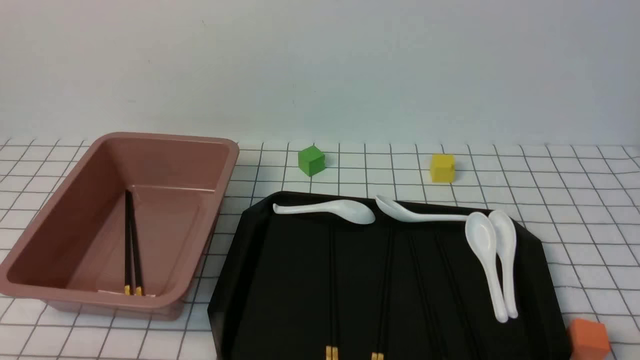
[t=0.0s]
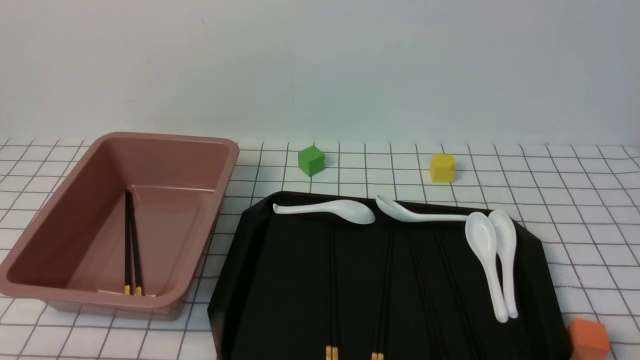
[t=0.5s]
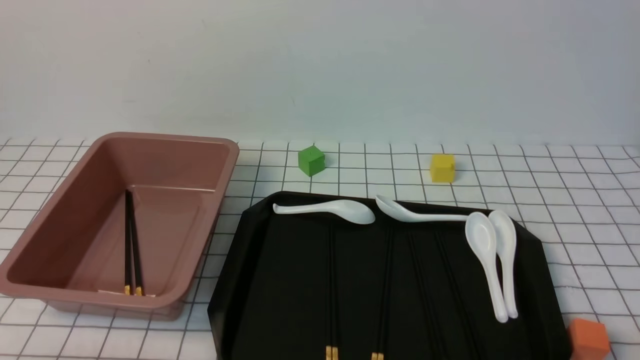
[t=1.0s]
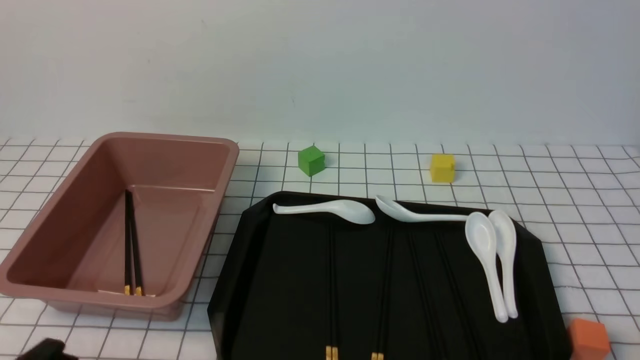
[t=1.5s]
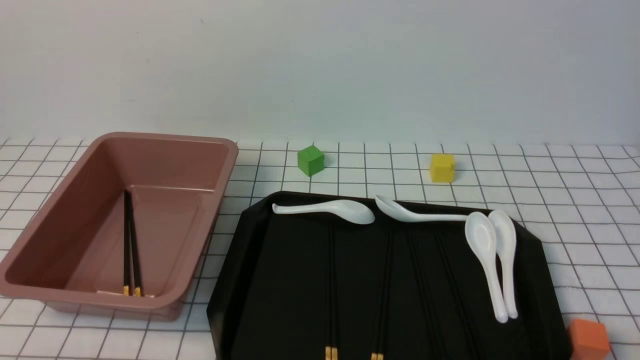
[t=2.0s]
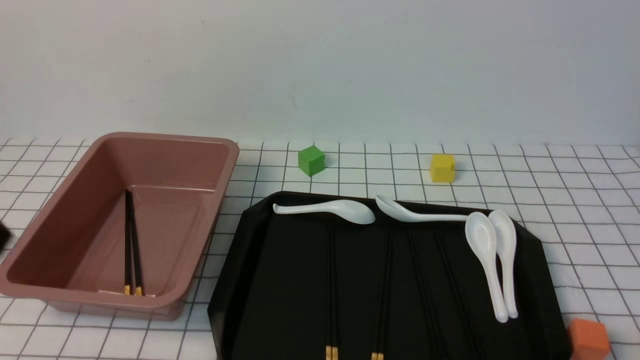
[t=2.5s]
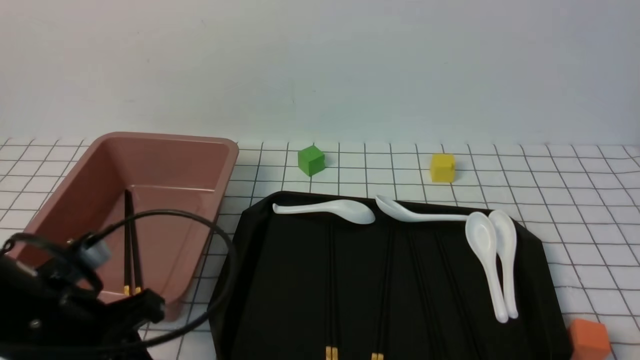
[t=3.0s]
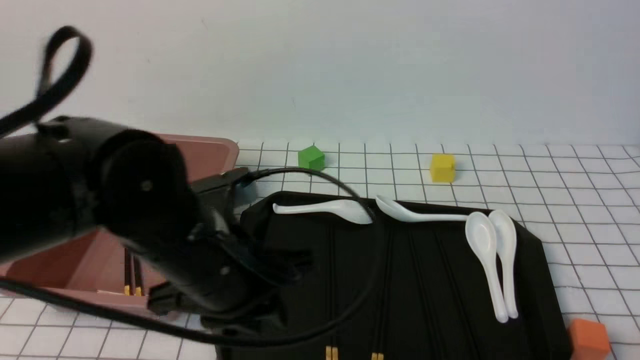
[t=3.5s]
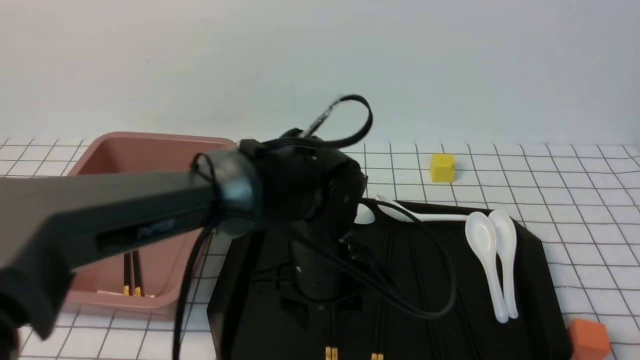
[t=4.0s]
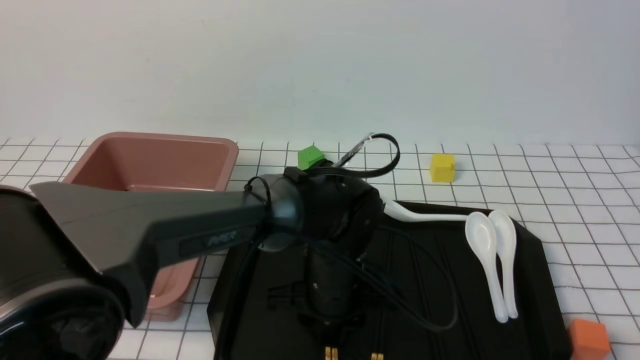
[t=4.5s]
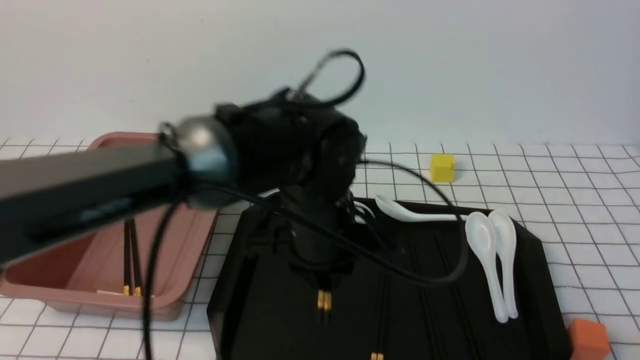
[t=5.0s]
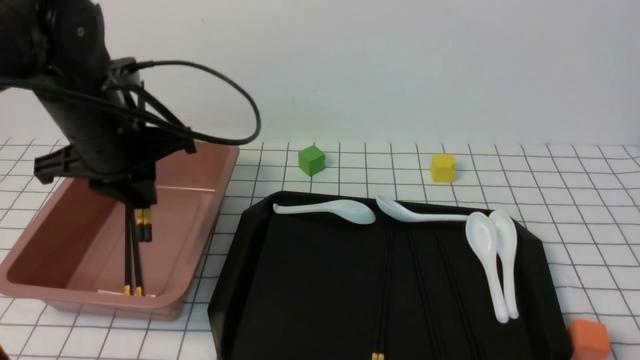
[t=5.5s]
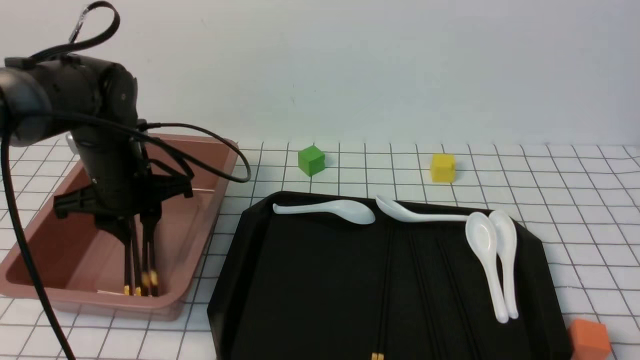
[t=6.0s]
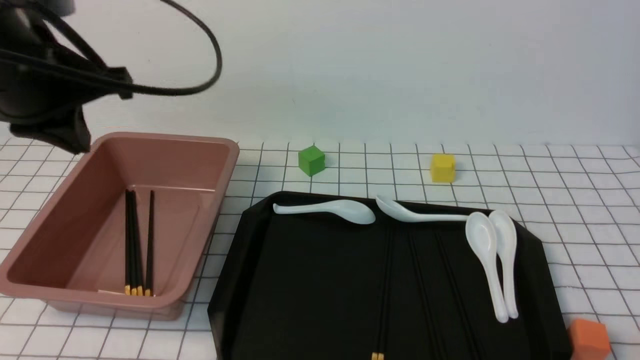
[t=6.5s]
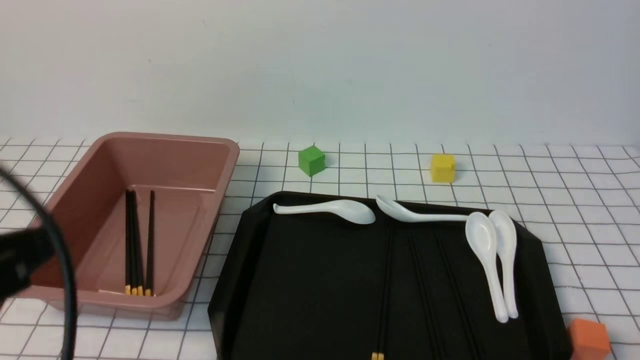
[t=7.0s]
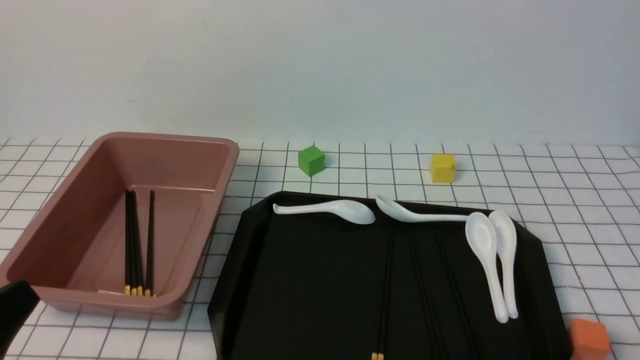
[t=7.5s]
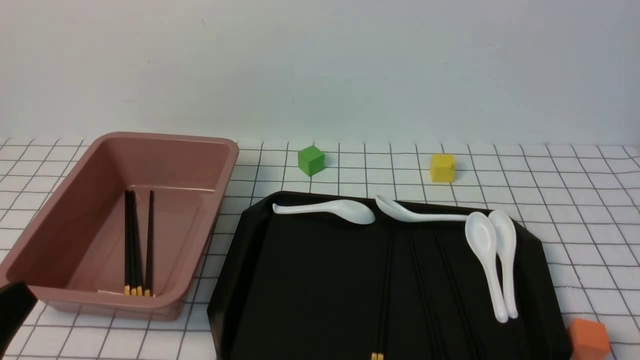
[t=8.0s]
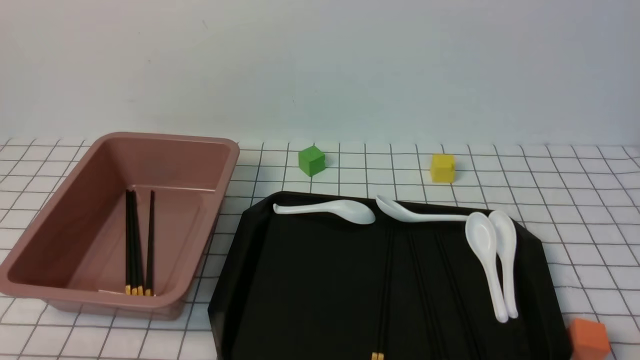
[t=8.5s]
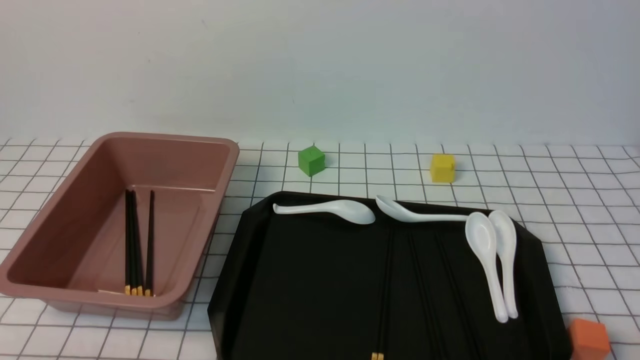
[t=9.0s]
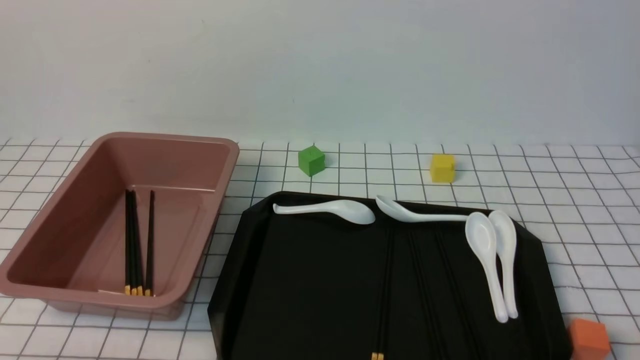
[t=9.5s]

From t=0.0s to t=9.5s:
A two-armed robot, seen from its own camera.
Step, from t=0.0s to t=4.5s: use the left arm to grab a pair of chopsticks.
Step, from t=5.0s to t=6.0s: use the left arm to put the chopsticks into the lunch box.
From t=2.0s to t=4.0s: The left gripper is displaced to the right and forward by approximately 35 cm, and opens its fingers.
From t=4.0s to t=5.5s: The left gripper heads to the left and upward, covering some 20 cm, and closes.
From t=5.5s to t=7.5s: The left gripper goes some 30 cm backward, and closes up.
From t=7.5s to t=9.5s: The left gripper is displaced downward by about 10 cm.

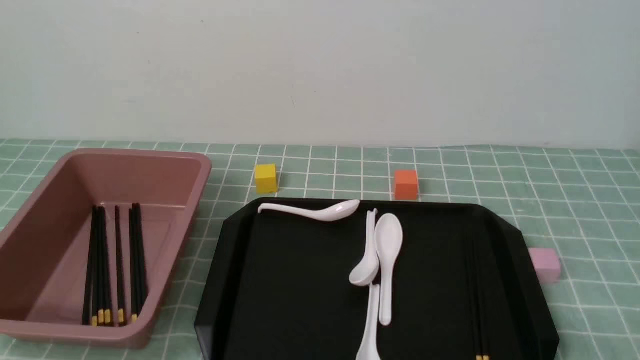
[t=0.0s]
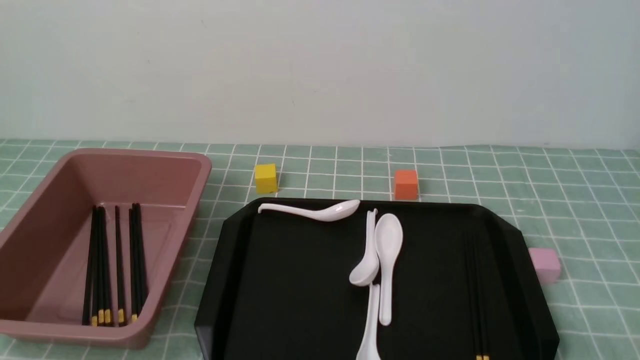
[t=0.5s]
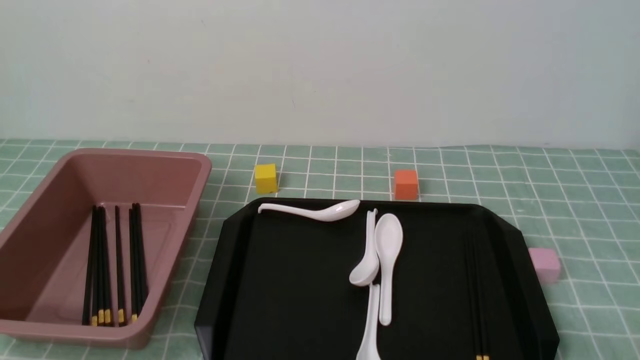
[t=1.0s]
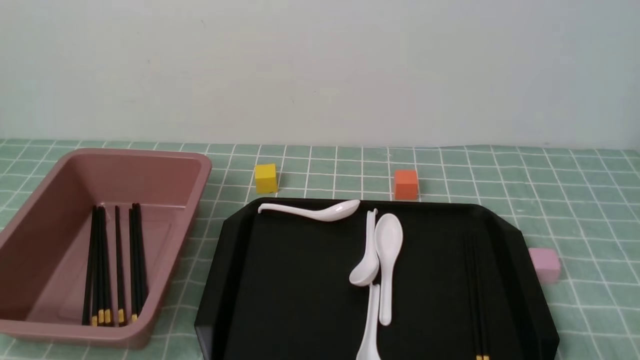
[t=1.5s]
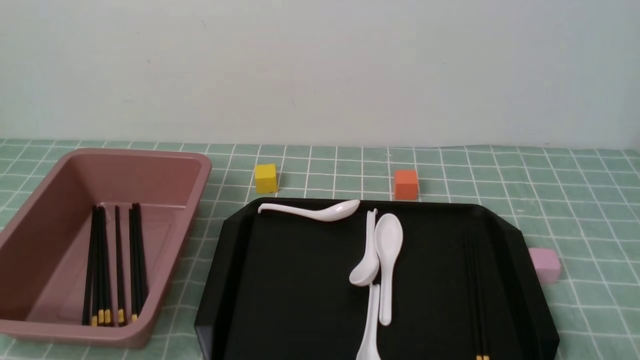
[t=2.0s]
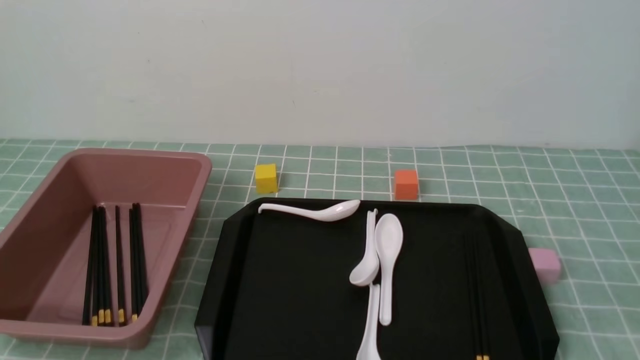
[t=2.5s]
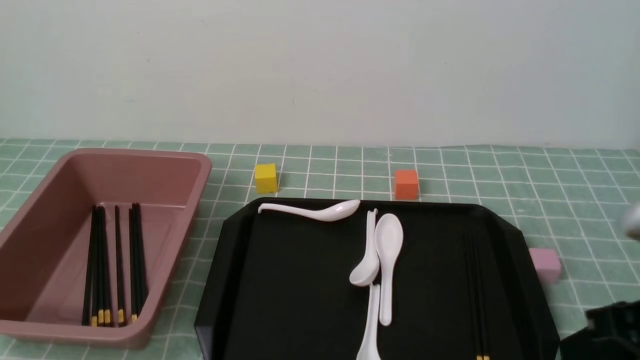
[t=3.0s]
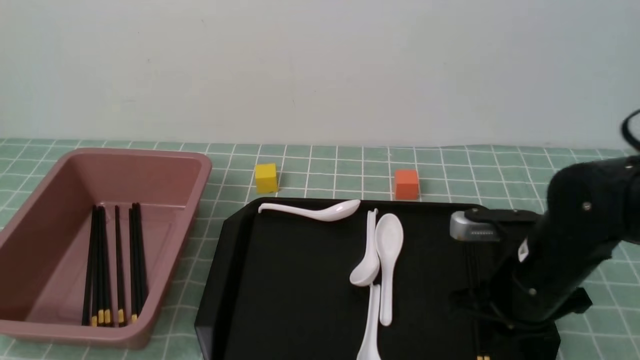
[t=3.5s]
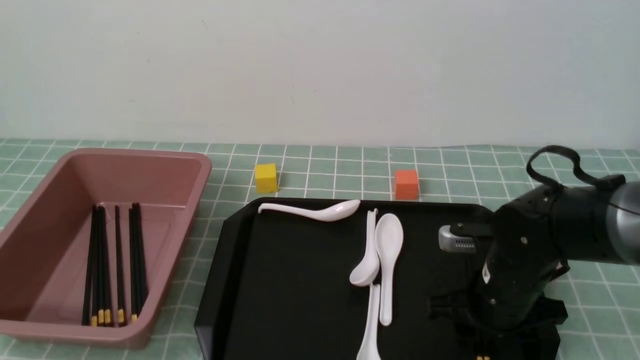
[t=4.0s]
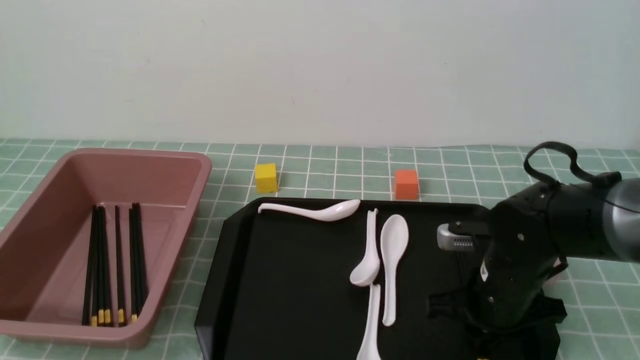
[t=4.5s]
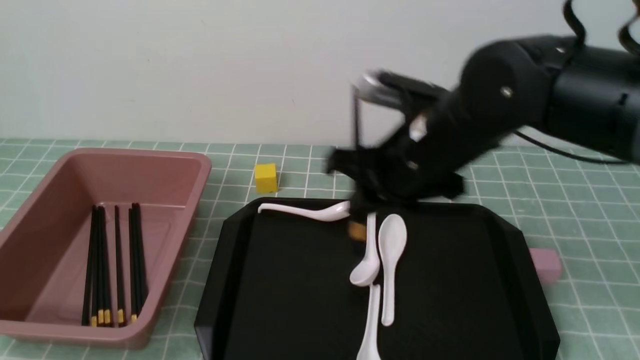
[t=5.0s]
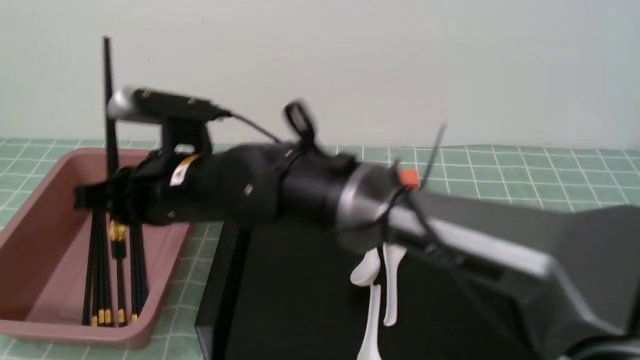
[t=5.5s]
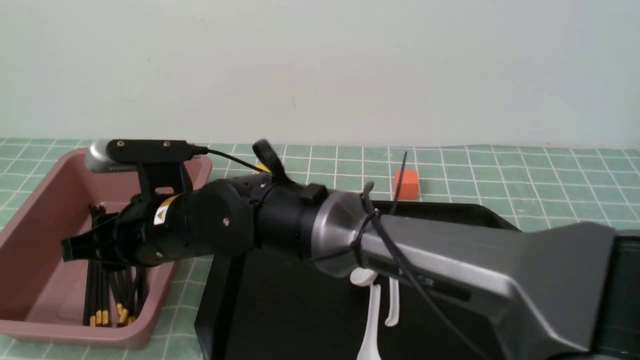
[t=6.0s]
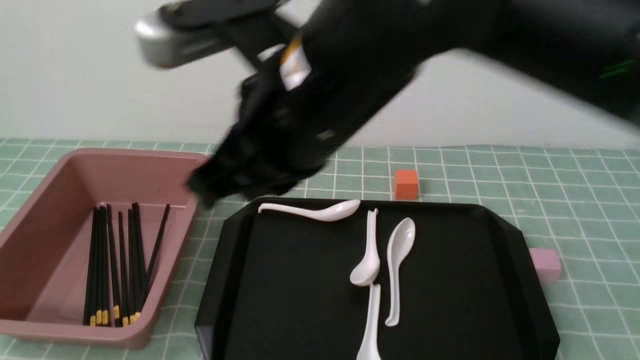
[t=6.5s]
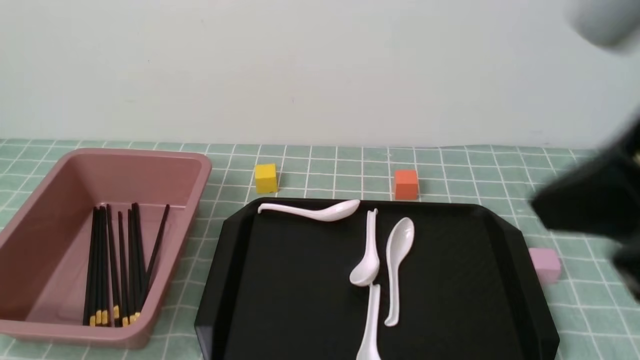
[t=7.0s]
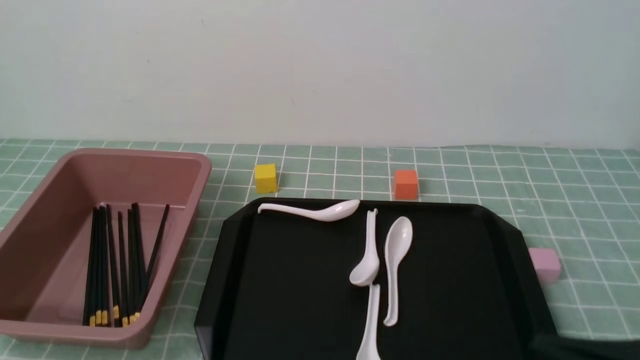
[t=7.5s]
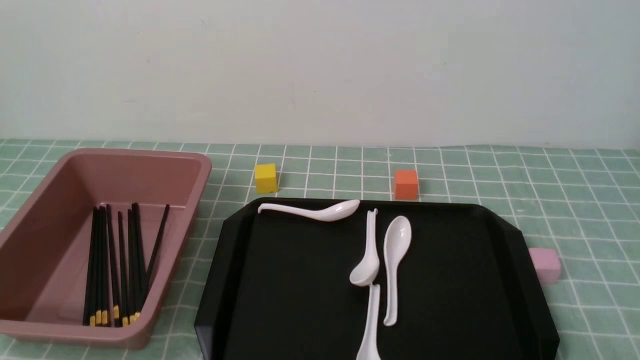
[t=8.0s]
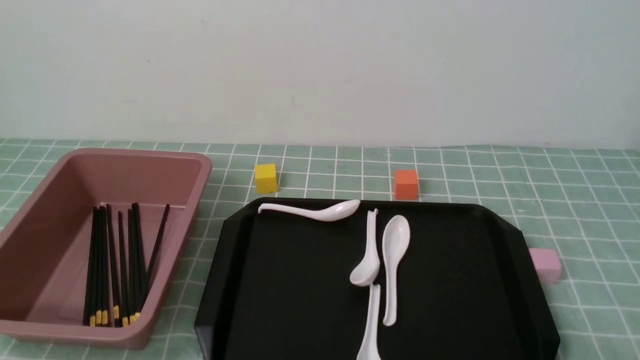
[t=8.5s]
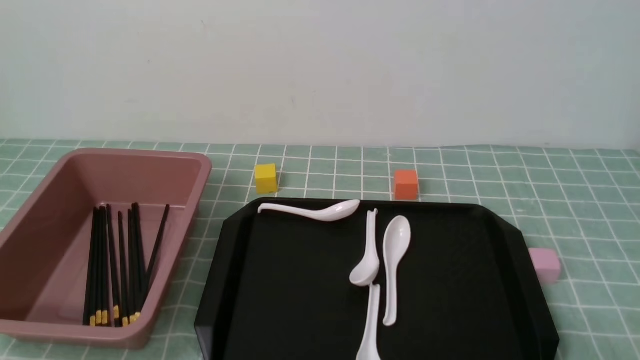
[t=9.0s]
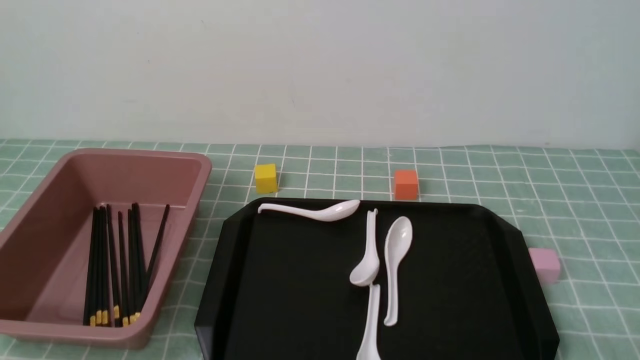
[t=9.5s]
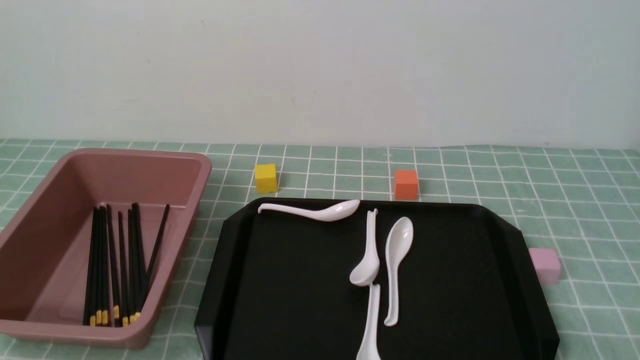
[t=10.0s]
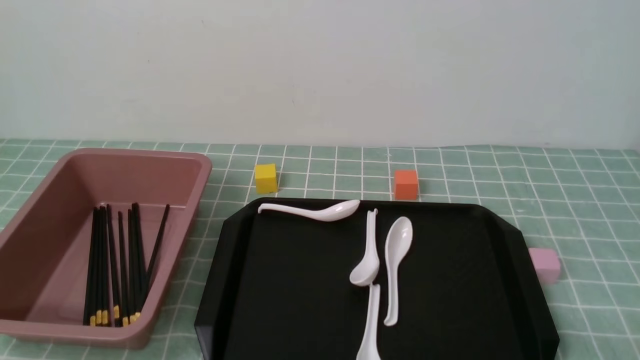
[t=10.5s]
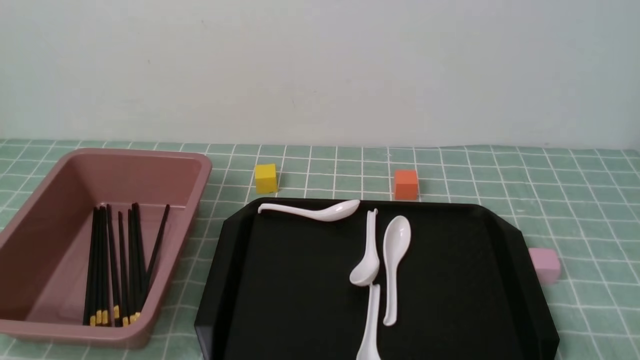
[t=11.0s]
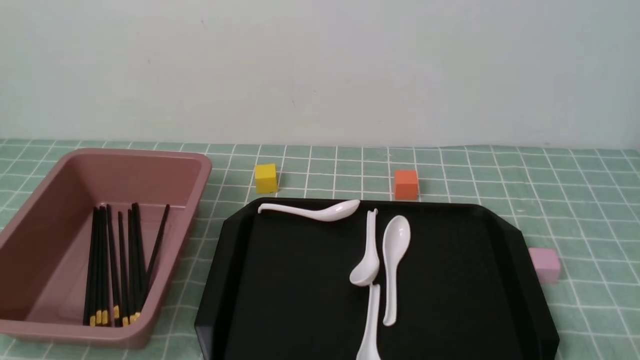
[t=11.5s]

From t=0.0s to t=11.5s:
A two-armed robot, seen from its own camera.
Step, from t=0.0s to t=4.5s: use the right arm to grab a pair of chopsticks.
Step, from t=5.0s to t=6.0s: use the right arm to put the chopsticks into the lunch box.
From t=2.0s to t=4.0s: The right gripper is displaced forward and to the left by approximately 25 cm, and closes and opens again.
From t=4.0s to t=6.0s: The right gripper goes roughly 30 cm to the left.
From t=6.0s to t=7.5s: The right gripper shifts some 40 cm to the right and backward, and closes its fingers.
From t=7.5s to t=9.5s: The right gripper shifts approximately 15 cm downward and to the right.
